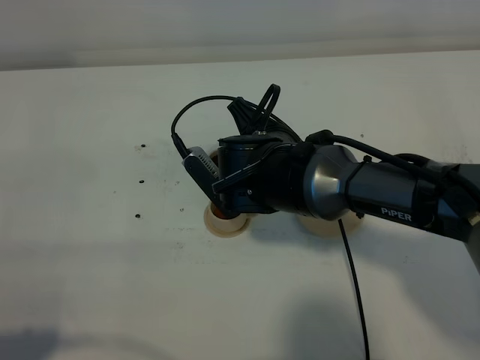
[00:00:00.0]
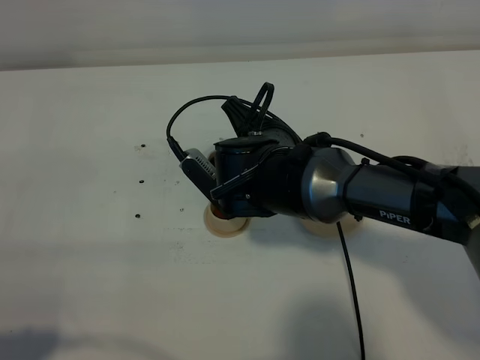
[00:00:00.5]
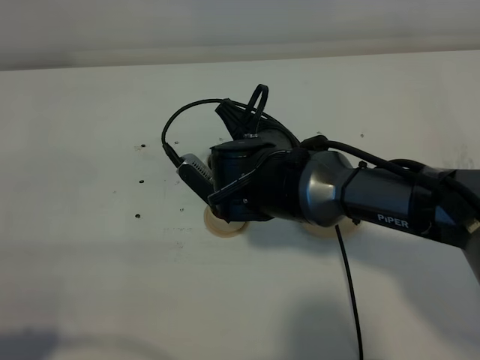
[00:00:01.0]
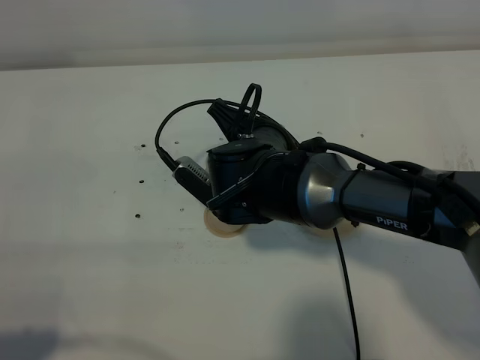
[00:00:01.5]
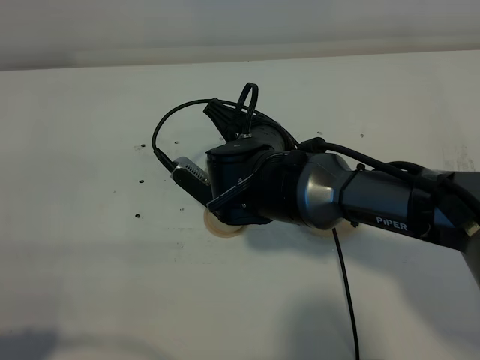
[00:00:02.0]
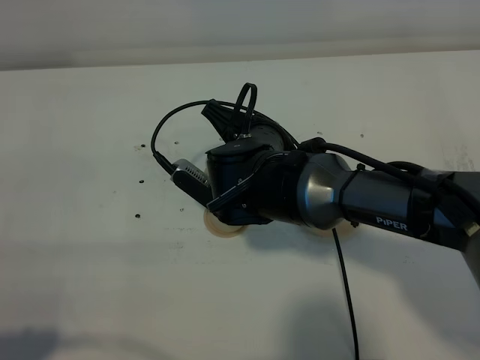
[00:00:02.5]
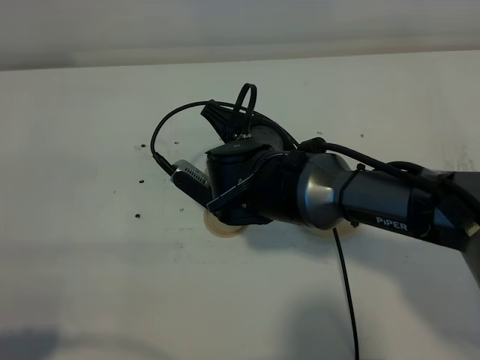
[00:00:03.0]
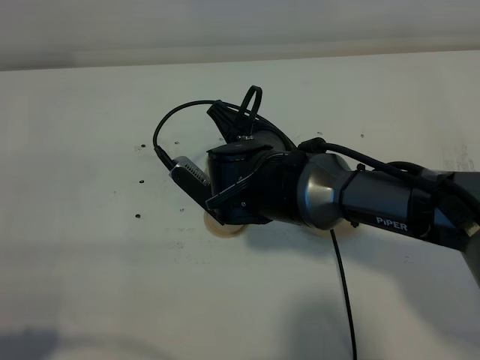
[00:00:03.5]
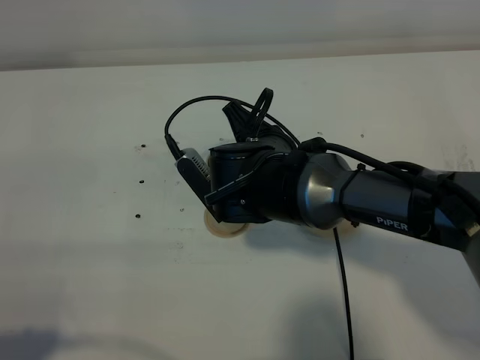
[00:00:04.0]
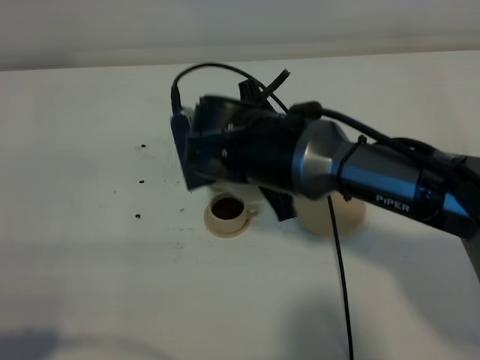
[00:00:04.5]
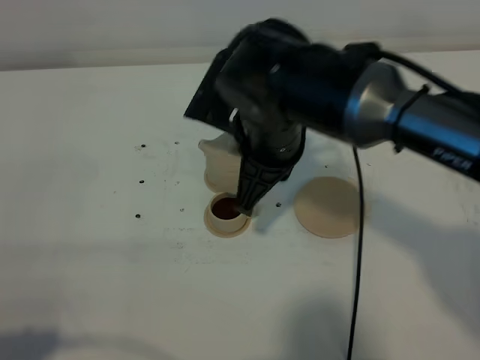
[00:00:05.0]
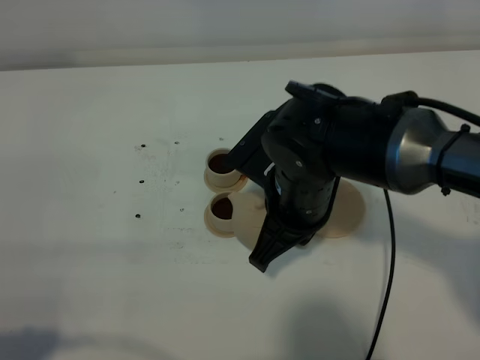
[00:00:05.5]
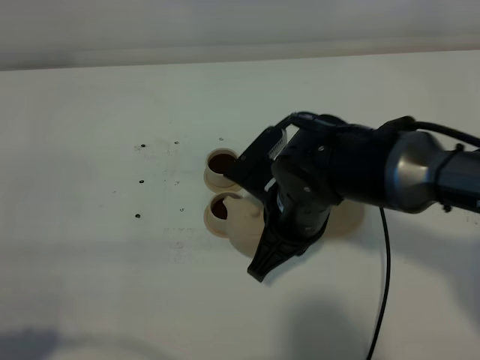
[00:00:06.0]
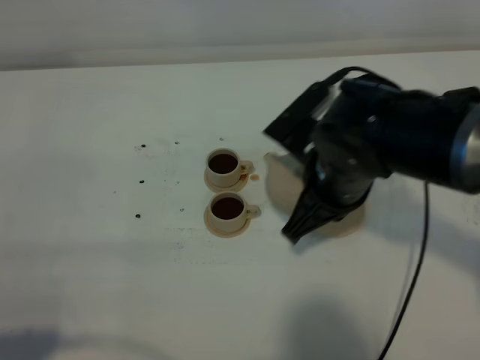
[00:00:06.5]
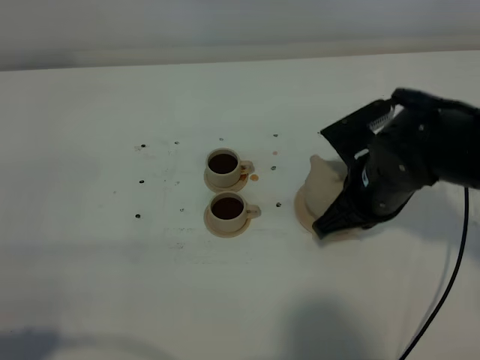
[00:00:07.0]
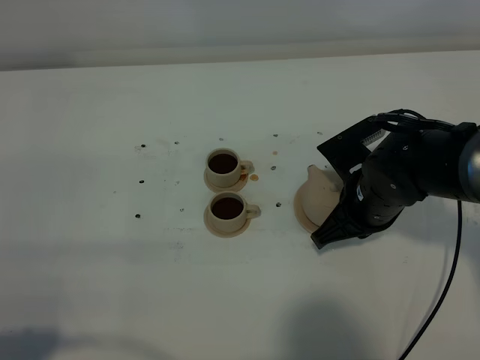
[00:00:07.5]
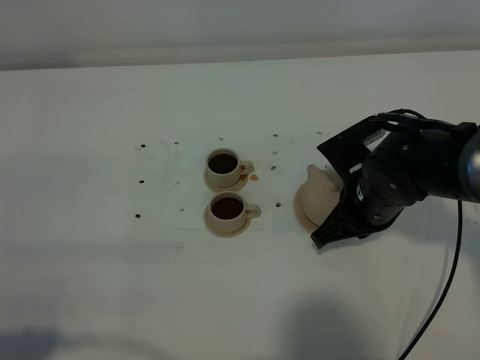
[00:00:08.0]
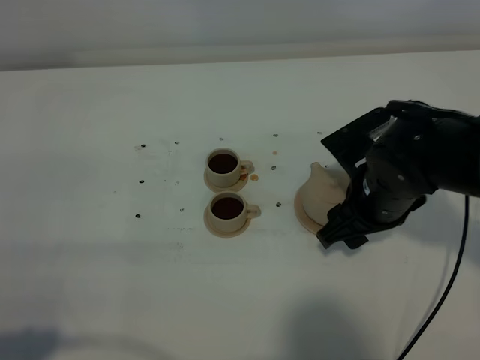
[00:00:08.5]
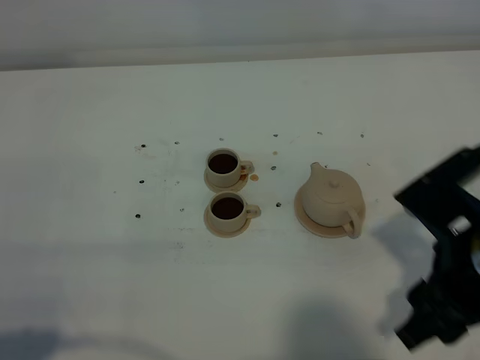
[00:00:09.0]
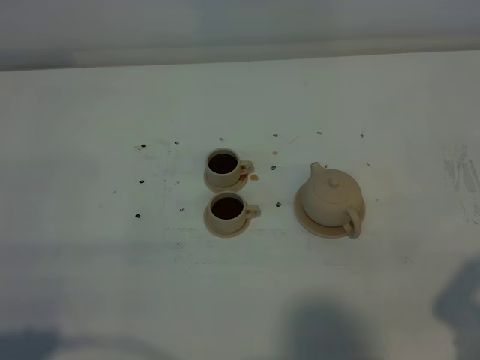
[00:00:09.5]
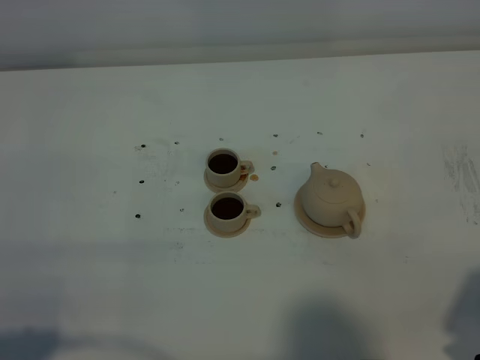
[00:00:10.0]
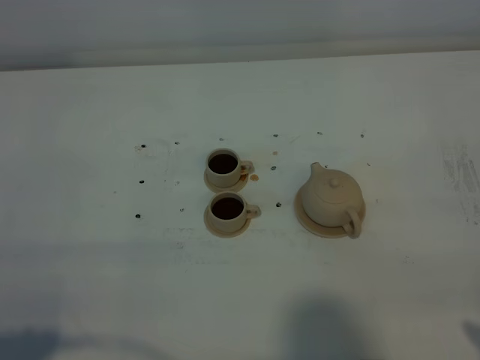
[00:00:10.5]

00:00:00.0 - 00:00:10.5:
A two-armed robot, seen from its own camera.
Task of the whole recording: grasp the brown teapot and pour the tea into the two brown teacups one by one, put the brown teapot back in its original place.
Step, 00:00:00.0 - 00:00:04.0: Pour tea into the teacup with the right gripper.
00:00:00.0 - 00:00:04.0: There are only small adjustments of the grippers.
00:00:04.0 - 00:00:06.5: The right gripper is displaced to the right by approximately 10 cm.
00:00:06.5 - 00:00:08.5: The right gripper opens its fingers.
00:00:08.5 - 00:00:10.5: The right gripper shifts some 25 cm backward and to the right.

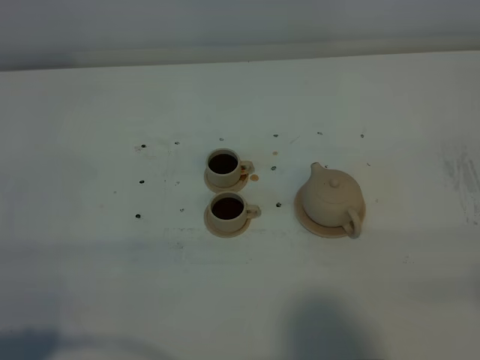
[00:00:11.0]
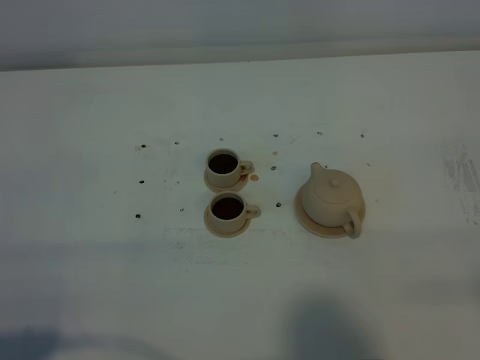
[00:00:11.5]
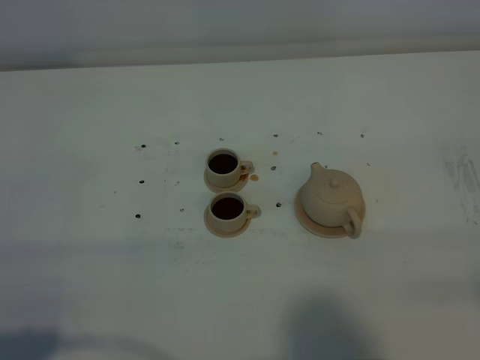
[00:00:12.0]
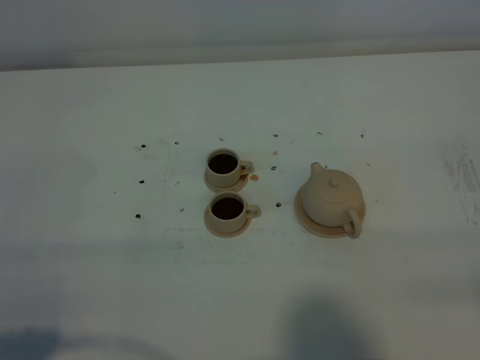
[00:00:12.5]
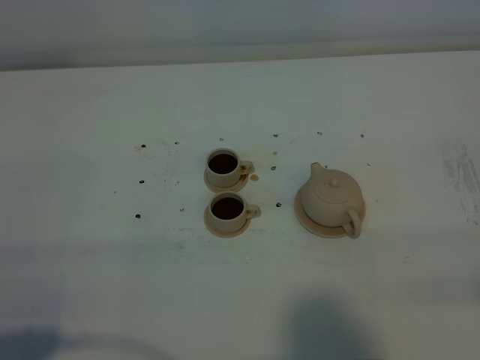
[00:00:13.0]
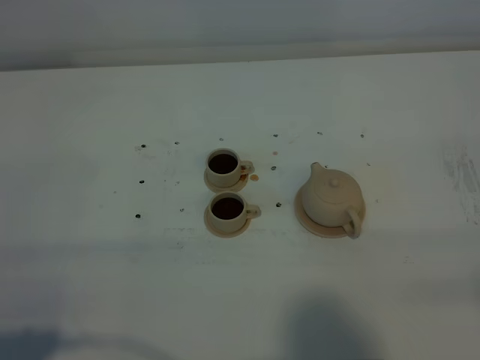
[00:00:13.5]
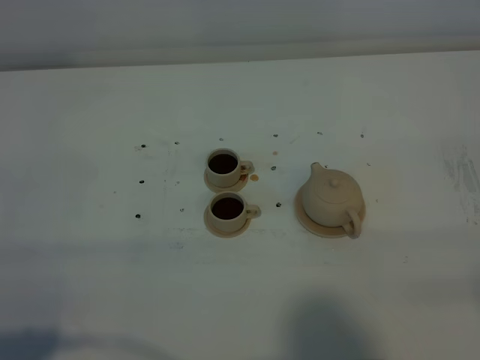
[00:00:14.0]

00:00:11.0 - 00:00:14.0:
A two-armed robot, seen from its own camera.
Task of the whole recording: grasp the brown teapot and pour the tea into the two brown teacups one by one, put the brown teapot back in its original place.
00:00:12.5 - 00:00:14.0: The two grippers keep their place.

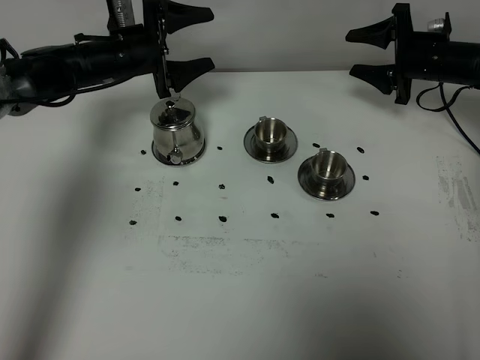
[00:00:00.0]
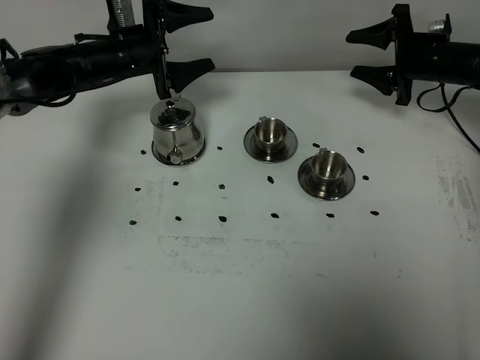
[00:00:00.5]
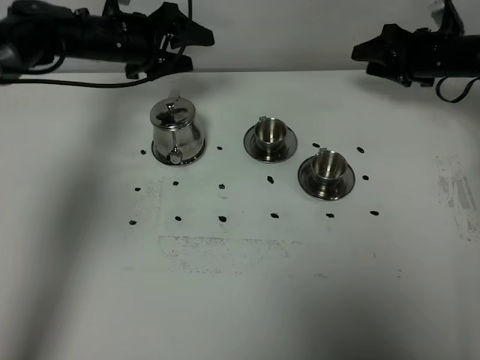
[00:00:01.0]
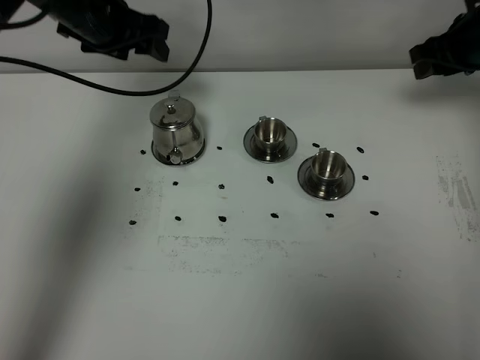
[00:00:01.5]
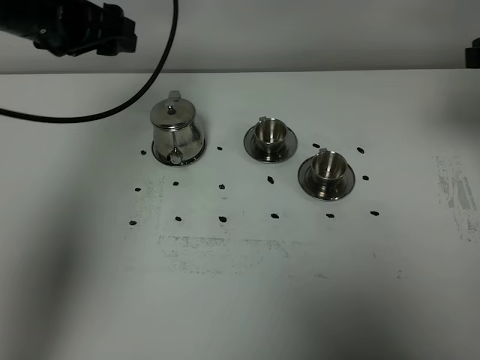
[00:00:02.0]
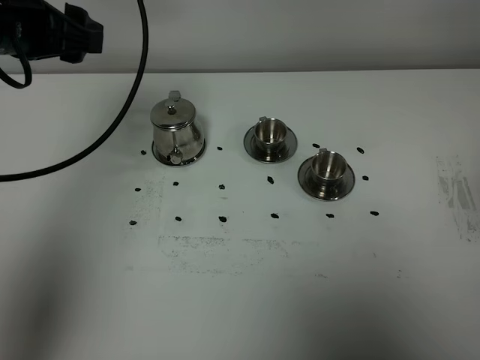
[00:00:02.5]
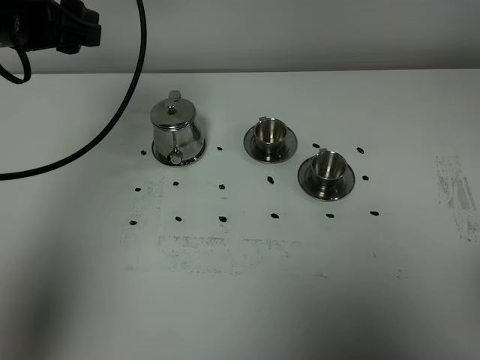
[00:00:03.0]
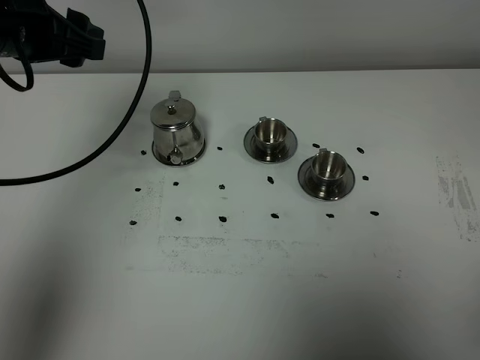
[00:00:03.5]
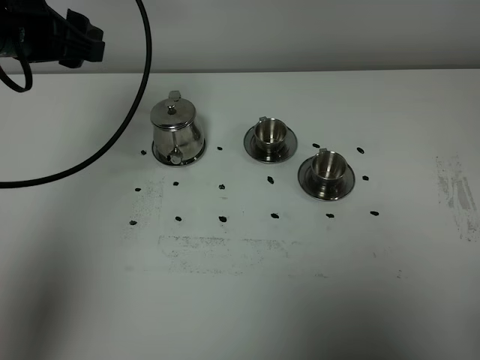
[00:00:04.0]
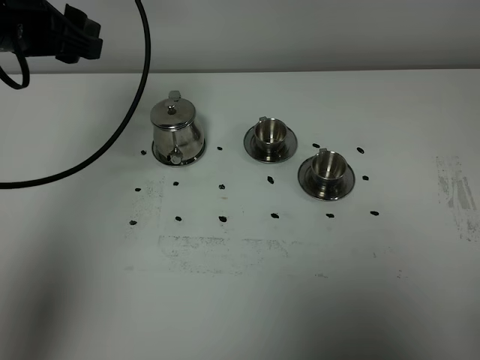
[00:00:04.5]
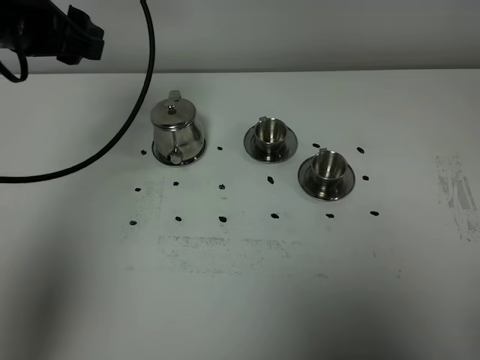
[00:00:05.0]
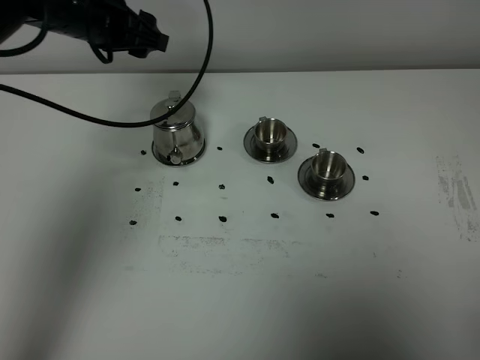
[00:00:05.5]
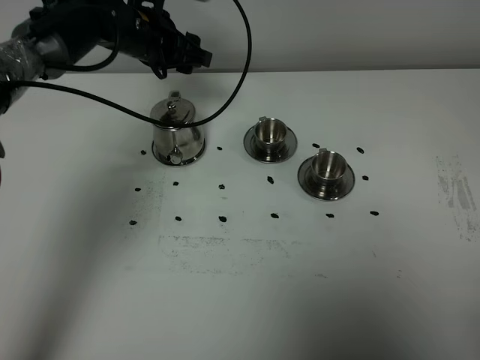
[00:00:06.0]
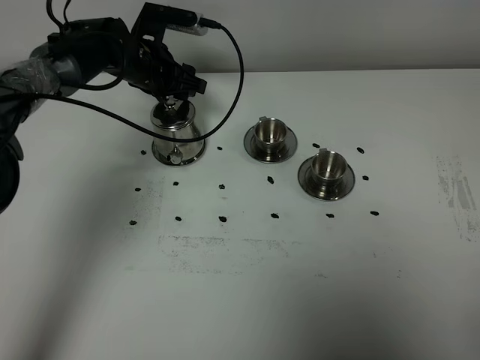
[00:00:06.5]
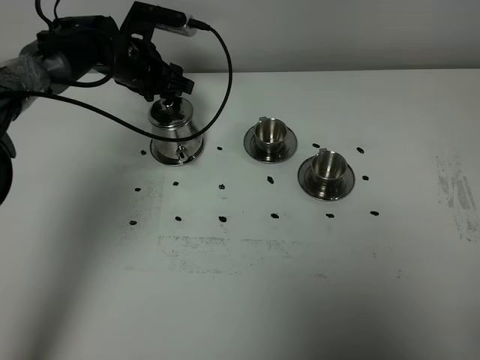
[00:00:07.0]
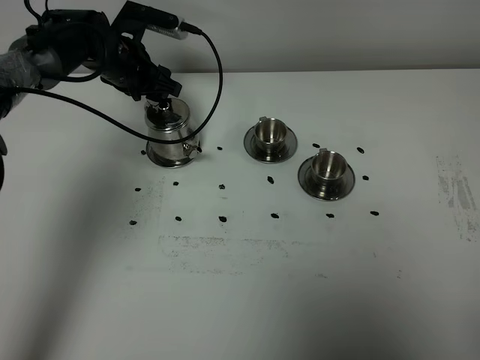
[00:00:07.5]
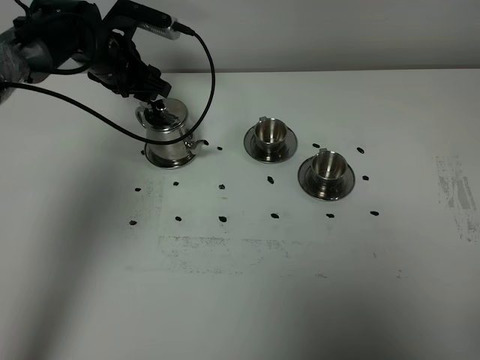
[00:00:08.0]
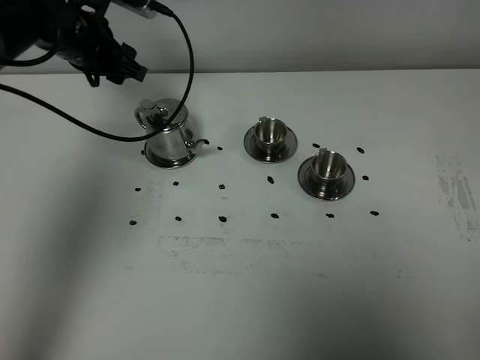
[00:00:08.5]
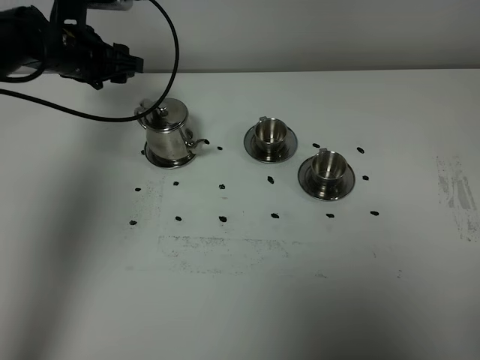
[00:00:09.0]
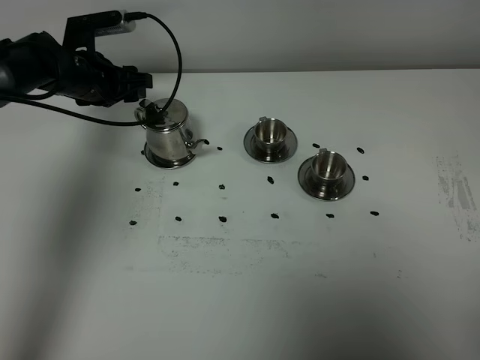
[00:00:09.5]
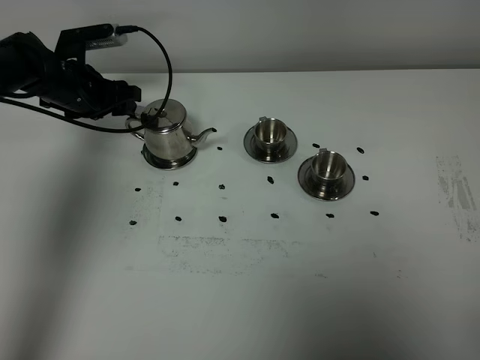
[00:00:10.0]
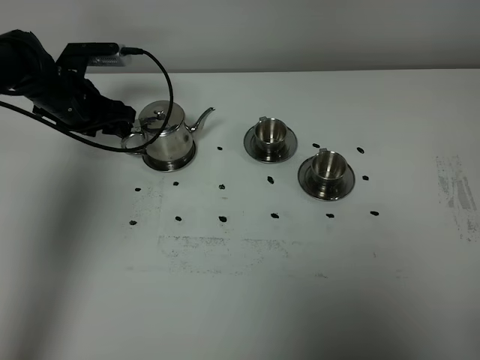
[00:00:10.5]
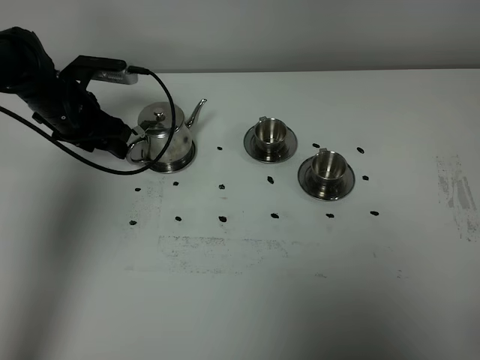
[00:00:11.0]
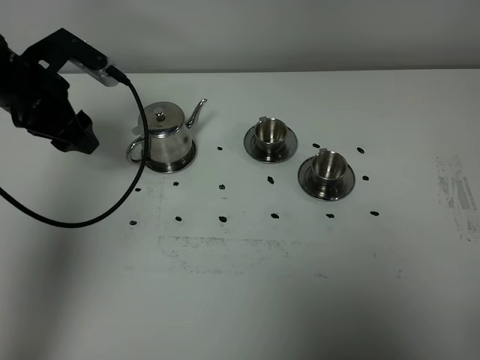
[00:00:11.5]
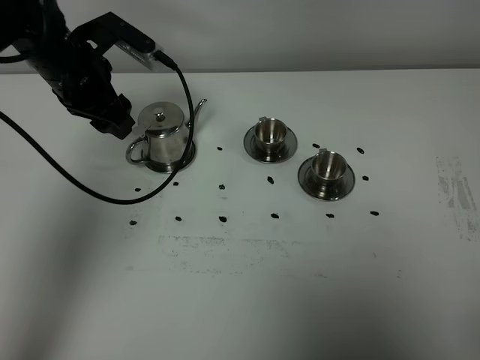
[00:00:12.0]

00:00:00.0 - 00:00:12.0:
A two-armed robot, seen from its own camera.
Task of the whole recording: grasp the stainless steel teapot and pour the tea into the two stainless steel teacups one by one, put the stainless steel teapot back in its original place.
00:00:00.0 - 00:00:02.0: The left gripper moves upward and backward, approximately 20 cm, while the right gripper moves backward and upward, approximately 25 cm.
00:00:02.0 - 00:00:04.0: The right gripper moves backward, roughly 30 cm, and closes its fingers.
00:00:04.0 - 00:00:06.0: The left gripper goes some 20 cm forward, downward and to the right.
00:00:06.0 - 00:00:08.0: The left gripper heads to the left, covering some 5 cm.
00:00:08.0 - 00:00:10.0: The left gripper shifts roughly 5 cm to the left.
00:00:10.0 - 00:00:12.0: The left gripper shifts roughly 10 cm upward, backward and to the right.
